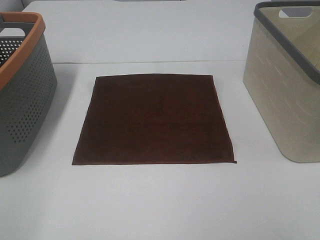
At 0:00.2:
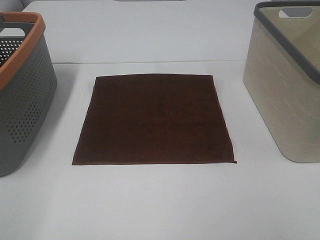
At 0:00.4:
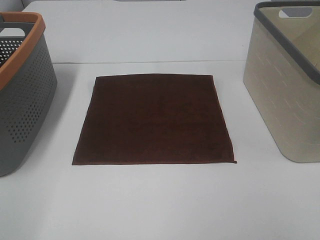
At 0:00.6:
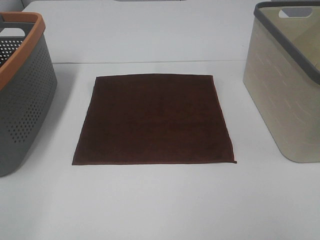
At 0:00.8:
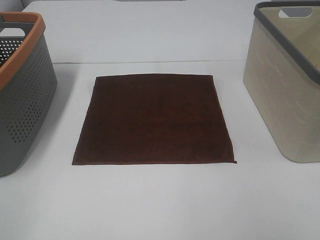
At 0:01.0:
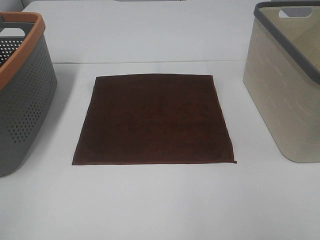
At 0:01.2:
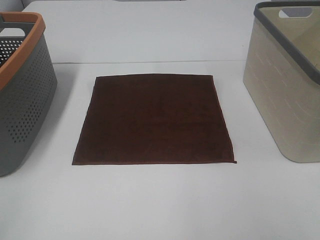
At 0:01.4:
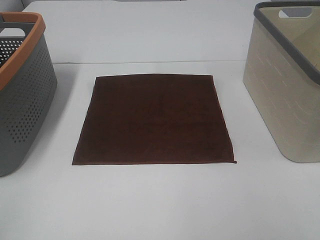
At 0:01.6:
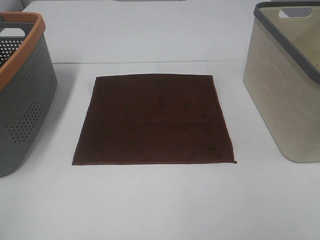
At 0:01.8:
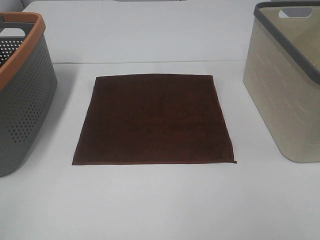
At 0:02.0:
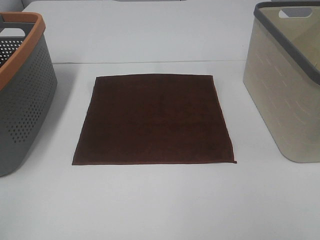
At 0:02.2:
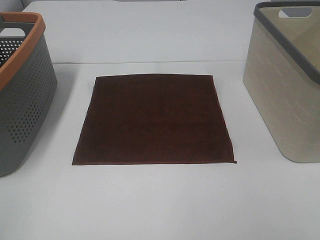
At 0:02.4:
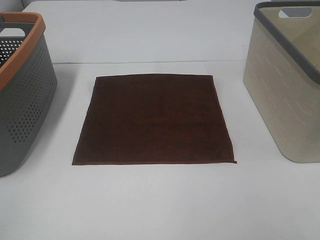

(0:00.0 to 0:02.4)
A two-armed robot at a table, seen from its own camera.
Task of the whole recording: Remove the towel and place it.
0:01.2 - 0:02.4: Both grippers stay about where they are.

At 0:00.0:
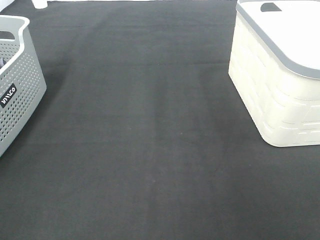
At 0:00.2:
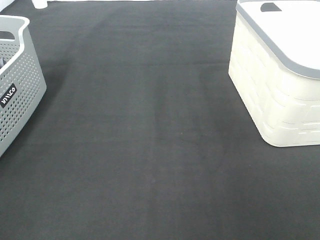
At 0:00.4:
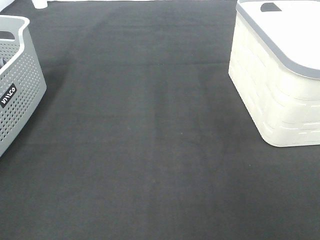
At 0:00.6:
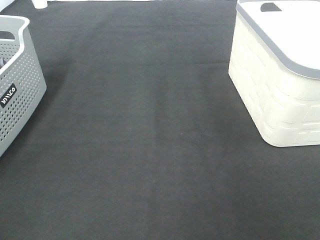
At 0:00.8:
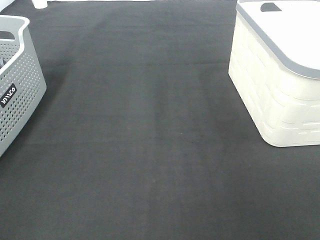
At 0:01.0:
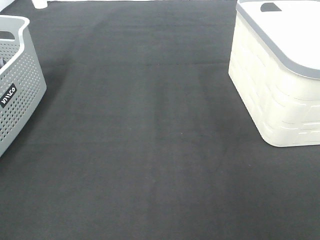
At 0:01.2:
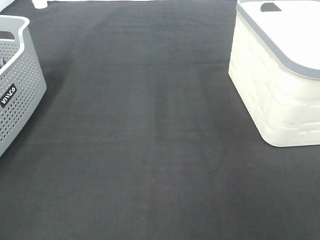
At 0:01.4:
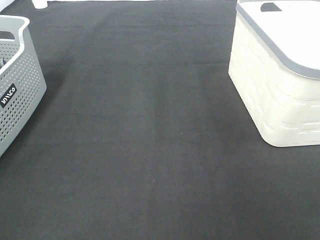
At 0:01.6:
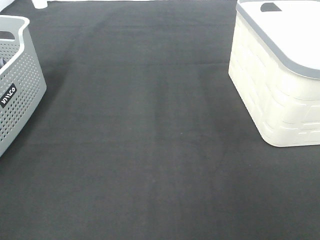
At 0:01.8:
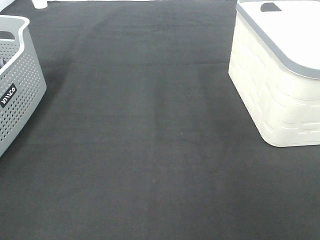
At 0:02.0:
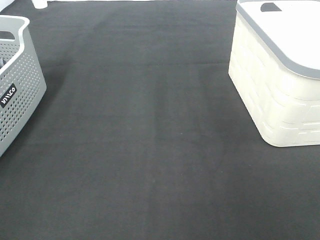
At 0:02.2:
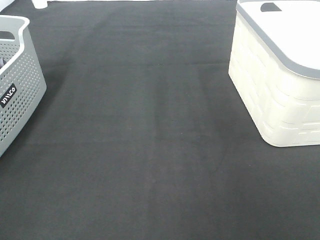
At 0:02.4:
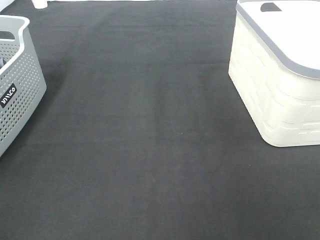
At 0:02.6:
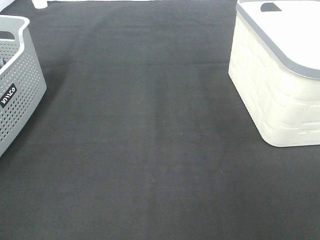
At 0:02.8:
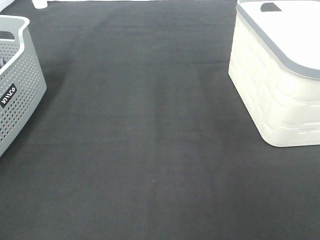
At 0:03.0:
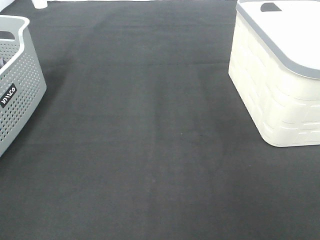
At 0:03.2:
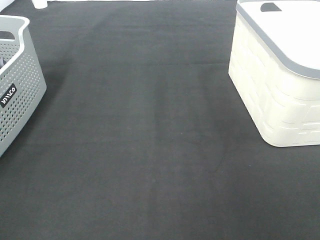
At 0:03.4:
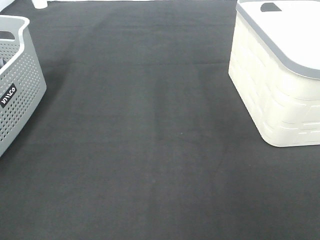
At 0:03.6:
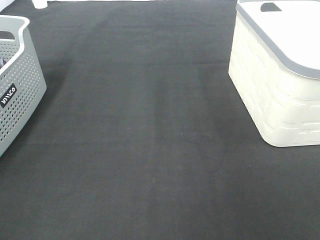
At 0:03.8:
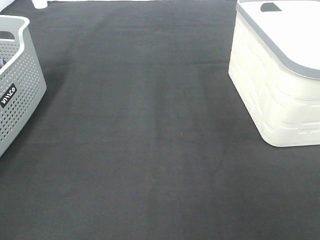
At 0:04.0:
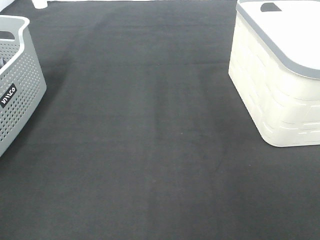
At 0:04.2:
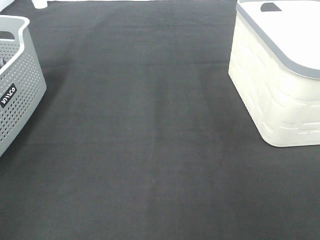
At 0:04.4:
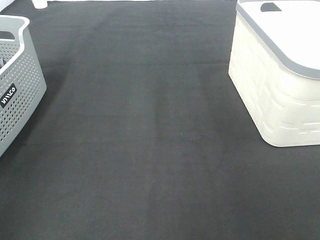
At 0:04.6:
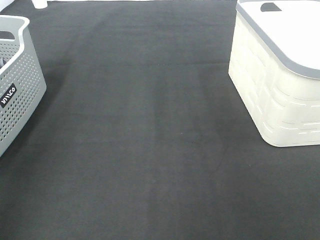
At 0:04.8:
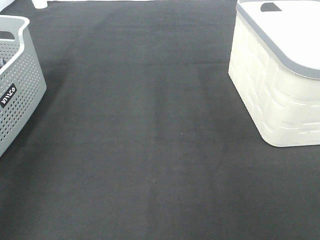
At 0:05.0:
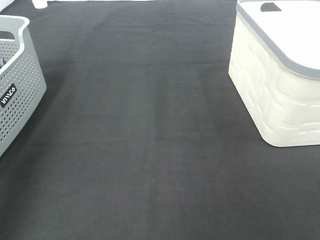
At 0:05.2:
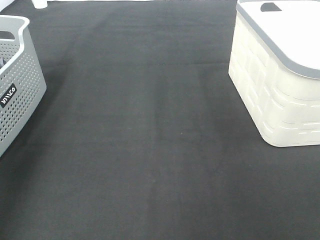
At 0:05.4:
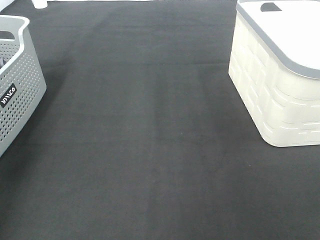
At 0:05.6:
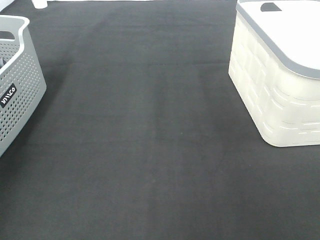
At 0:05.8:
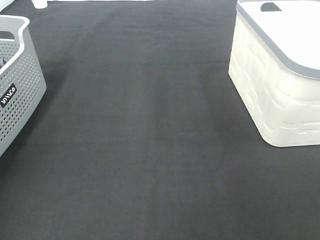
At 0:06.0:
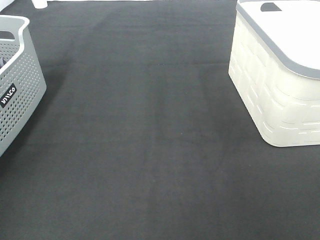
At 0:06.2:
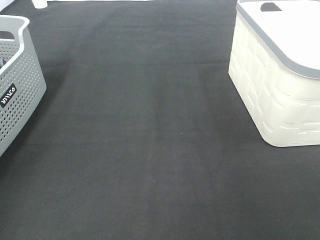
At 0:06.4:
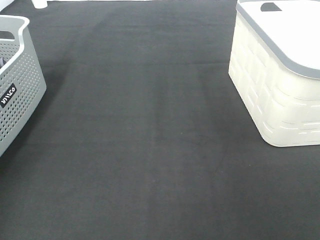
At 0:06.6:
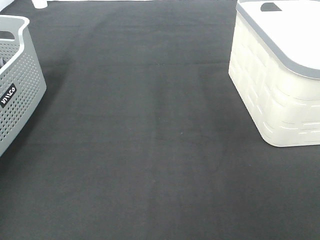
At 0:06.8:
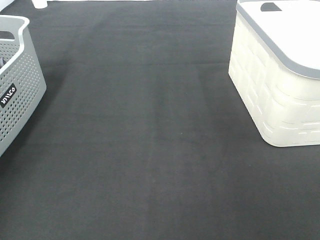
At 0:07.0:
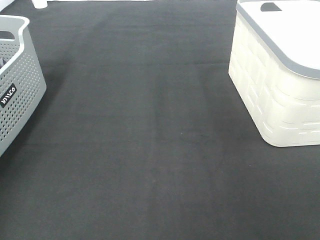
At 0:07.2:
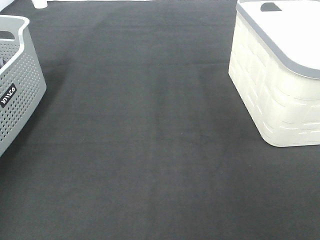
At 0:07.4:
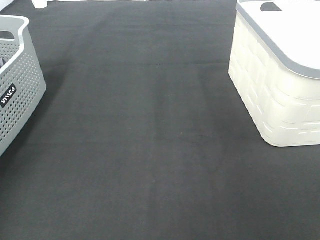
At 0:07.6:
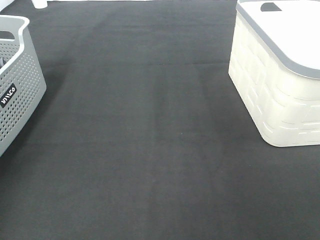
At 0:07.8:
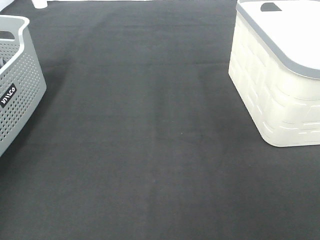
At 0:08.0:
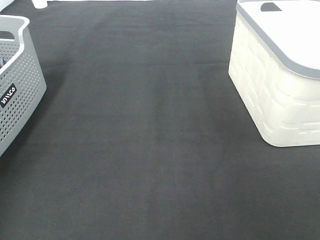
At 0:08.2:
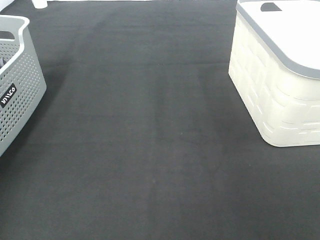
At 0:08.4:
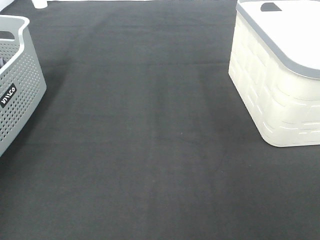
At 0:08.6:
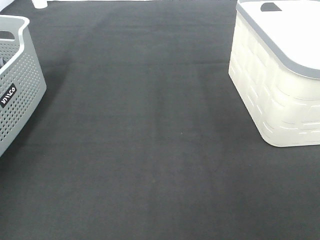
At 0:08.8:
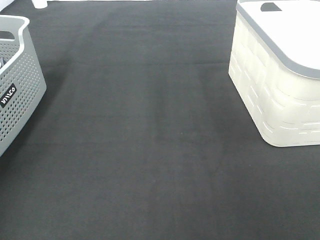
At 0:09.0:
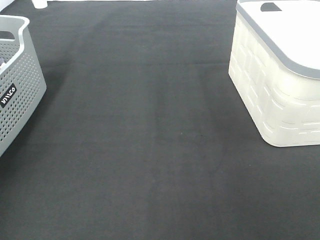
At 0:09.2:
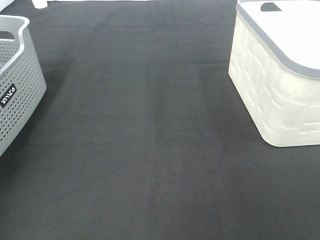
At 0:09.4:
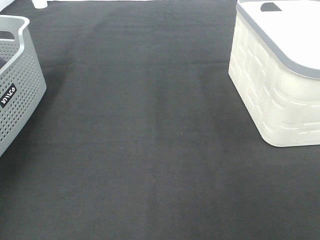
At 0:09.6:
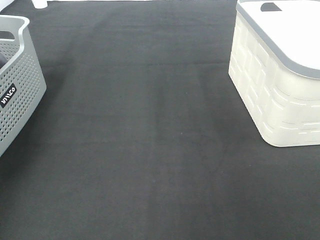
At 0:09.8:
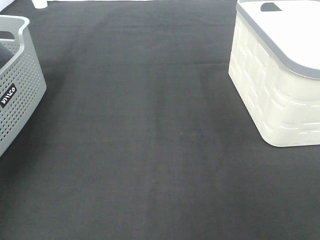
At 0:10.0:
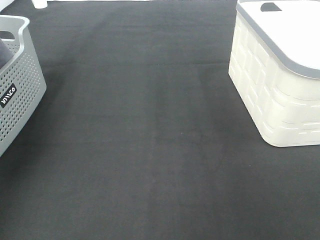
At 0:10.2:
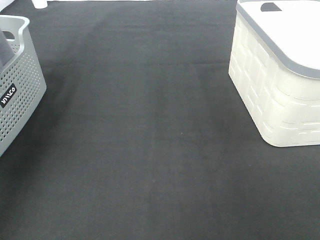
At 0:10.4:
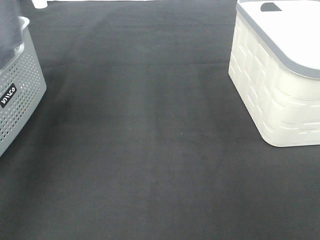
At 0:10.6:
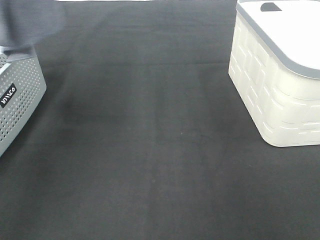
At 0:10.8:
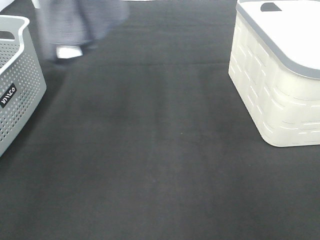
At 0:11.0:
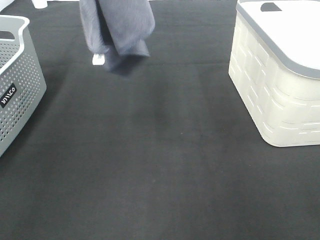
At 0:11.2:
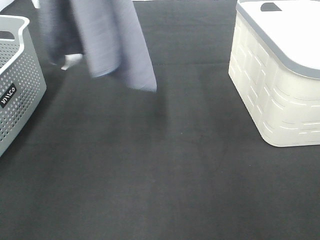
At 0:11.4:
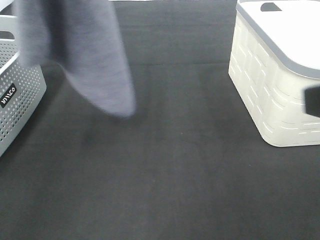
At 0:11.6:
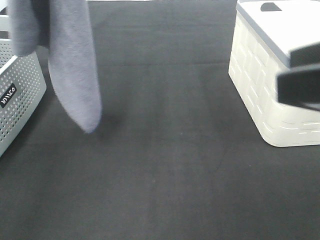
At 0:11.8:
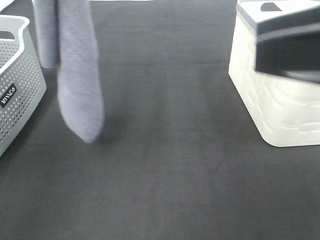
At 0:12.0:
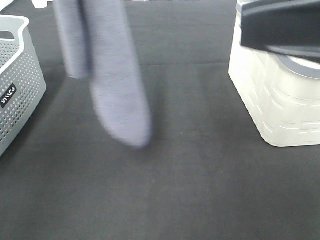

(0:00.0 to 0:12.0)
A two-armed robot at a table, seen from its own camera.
Task of the whole recording: Remove the towel and place it.
0:00.0 - 0:03.0: The two grippers keep their place.
0:09.0 - 0:10.4: The left gripper moves upward and to the right, about 20 cm.
0:10.4 - 0:12.0: The right gripper goes some 20 cm forward and to the left. Meanwhile the left gripper is displaced to the right by some 10 cm.

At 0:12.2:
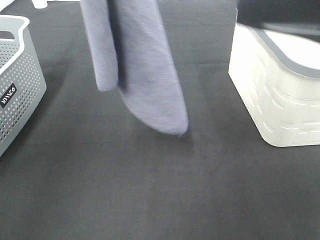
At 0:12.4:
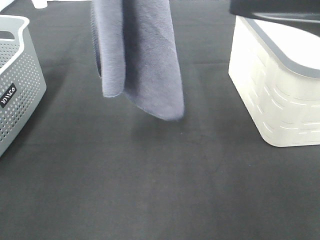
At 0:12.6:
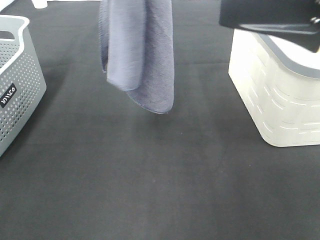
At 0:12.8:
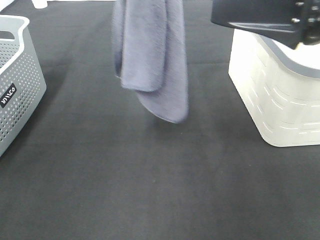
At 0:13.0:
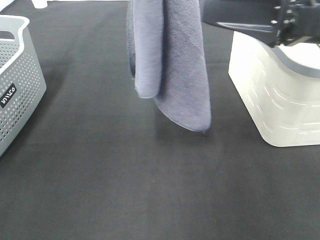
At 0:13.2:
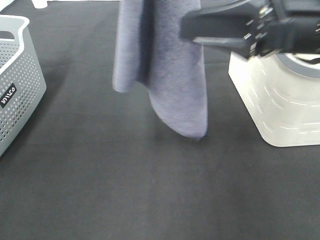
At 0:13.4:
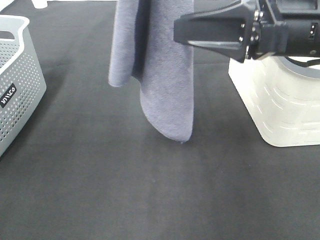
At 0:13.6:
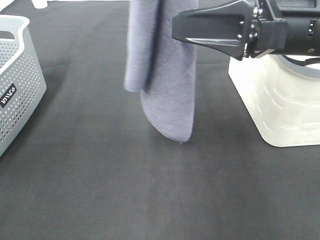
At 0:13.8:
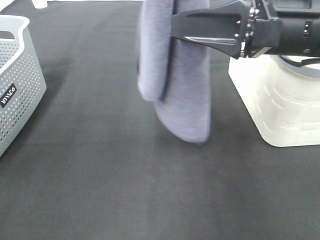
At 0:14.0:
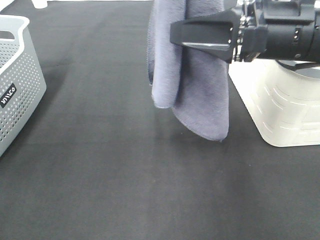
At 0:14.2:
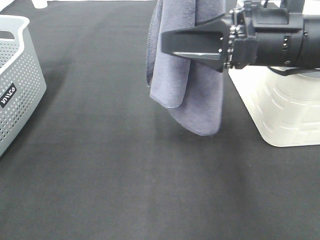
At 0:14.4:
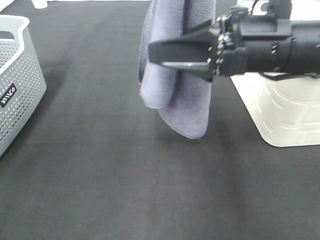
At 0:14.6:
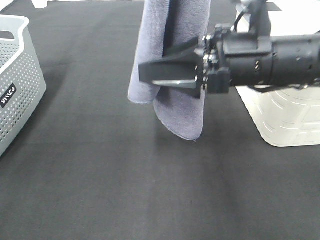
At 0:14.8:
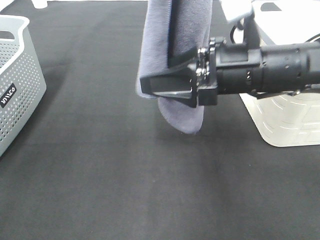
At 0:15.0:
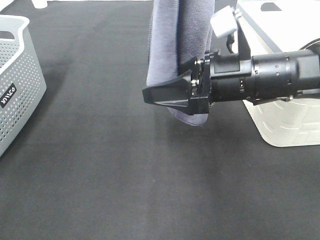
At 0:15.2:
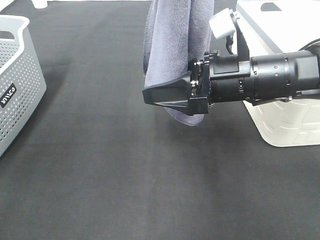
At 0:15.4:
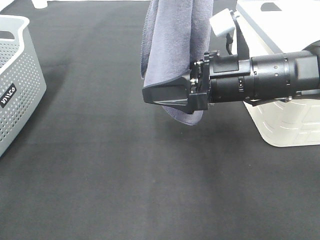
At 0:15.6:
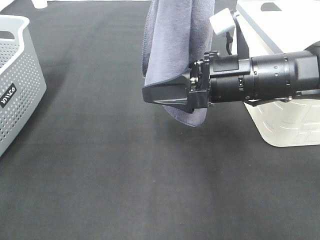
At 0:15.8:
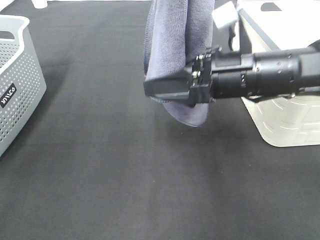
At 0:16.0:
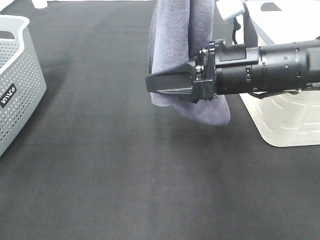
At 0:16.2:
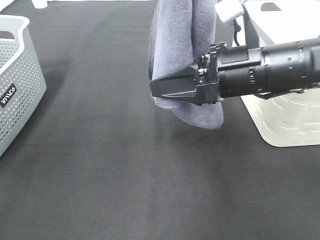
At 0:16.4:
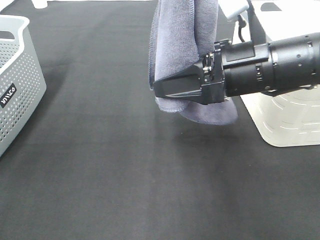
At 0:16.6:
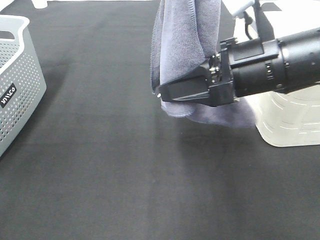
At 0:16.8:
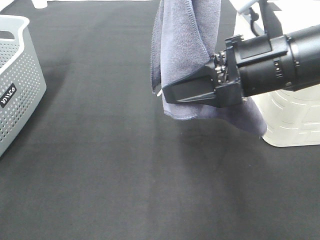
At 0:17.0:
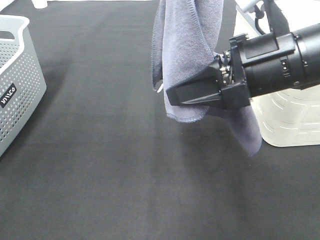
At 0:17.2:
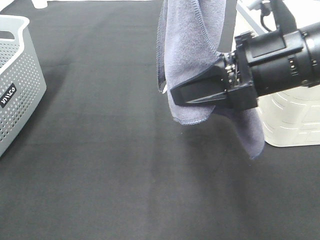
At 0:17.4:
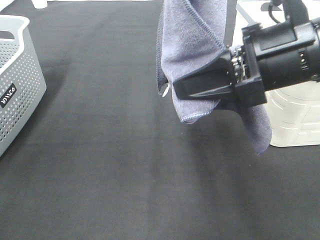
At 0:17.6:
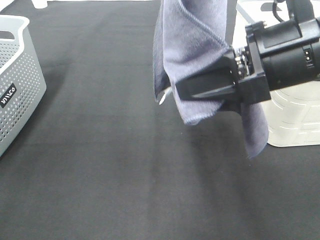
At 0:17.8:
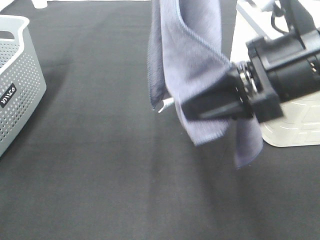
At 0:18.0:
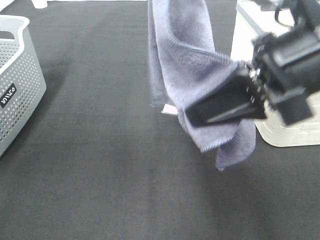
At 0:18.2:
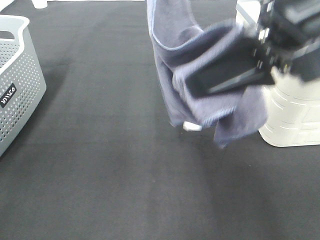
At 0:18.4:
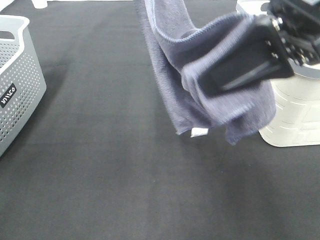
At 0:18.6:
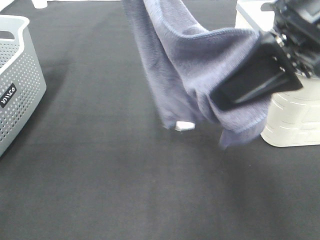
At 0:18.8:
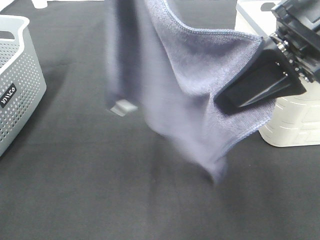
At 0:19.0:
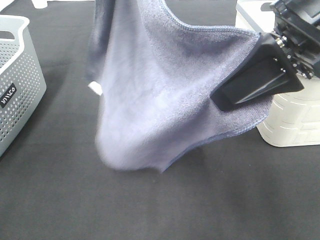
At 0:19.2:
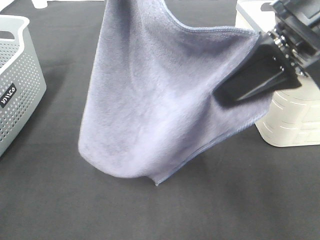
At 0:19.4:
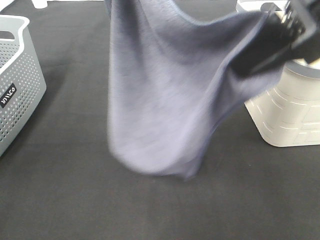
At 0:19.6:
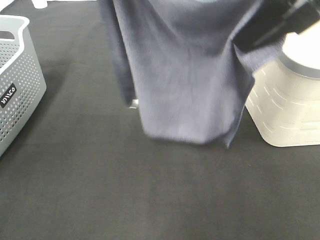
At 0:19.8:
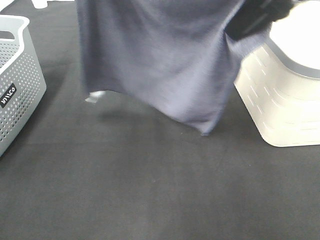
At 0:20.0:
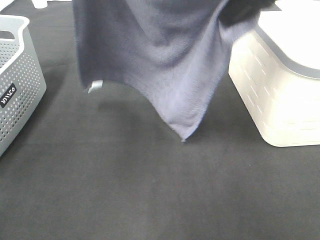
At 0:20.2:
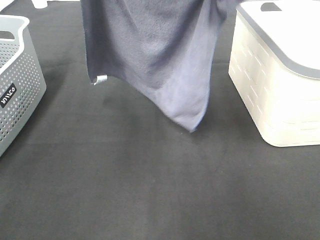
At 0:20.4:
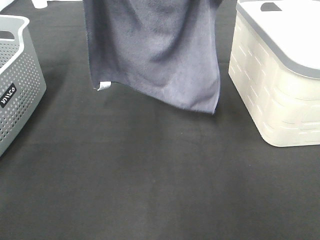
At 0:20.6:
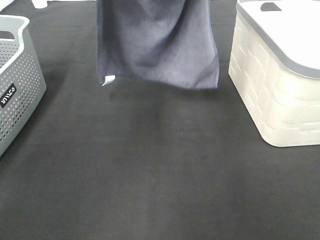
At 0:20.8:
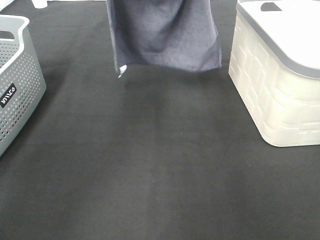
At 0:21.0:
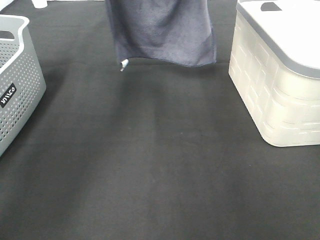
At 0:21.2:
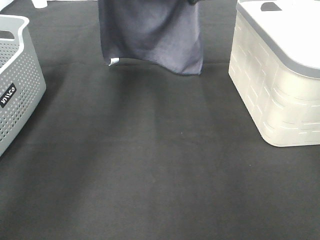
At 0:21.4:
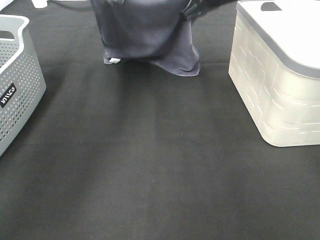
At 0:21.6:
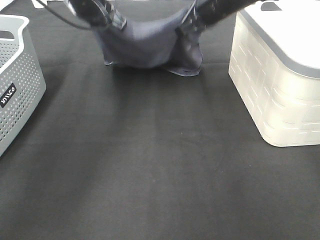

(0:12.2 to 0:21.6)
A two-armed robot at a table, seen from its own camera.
Task of the whole recording: Remove the towel and place it.
Step, 0:12.2 - 0:16.2: Right hand: grab a corner of the grey towel and straighten it.
Step, 0:16.4 - 0:20.0: Right hand: spread the grey towel flat on the table.
Step, 0:16.4 - 0:20.8: Left hand: spread the grey towel flat on the table.
0:12.2 - 0:13.8: The left gripper moves to the right, roughly 10 cm. Meanwhile the right gripper heads forward and downward, covering roughly 10 cm.
0:13.8 - 0:15.4: The right gripper is displaced downward by approximately 10 cm.
0:15.4 - 0:17.0: The right gripper goes approximately 5 cm upward, and closes its fingers.
0:17.0 - 0:18.4: The right gripper is displaced upward by about 10 cm.
0:18.4 - 0:20.0: The right gripper moves forward, about 10 cm.
0:20.0 - 0:21.6: The right gripper is displaced forward and downward by roughly 20 cm, while the left gripper heads downward and forward, covering roughly 20 cm.
